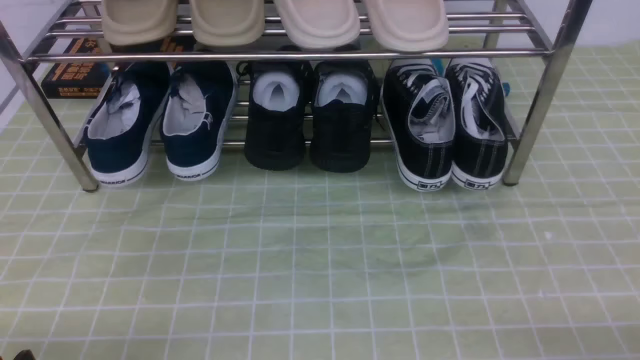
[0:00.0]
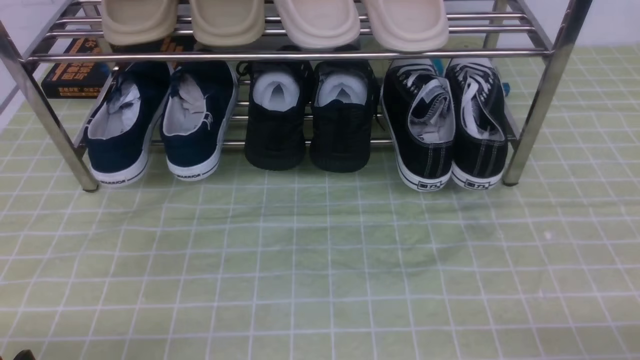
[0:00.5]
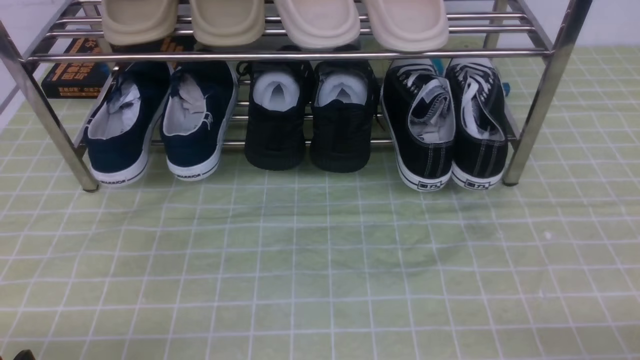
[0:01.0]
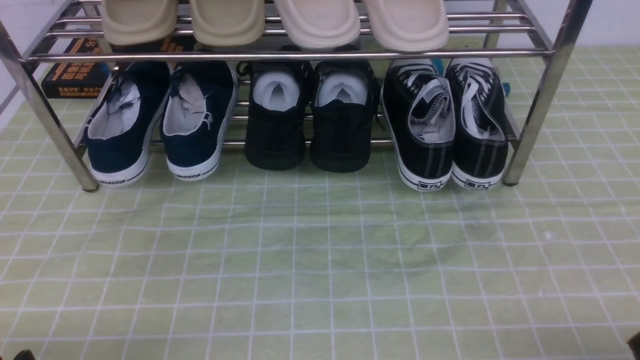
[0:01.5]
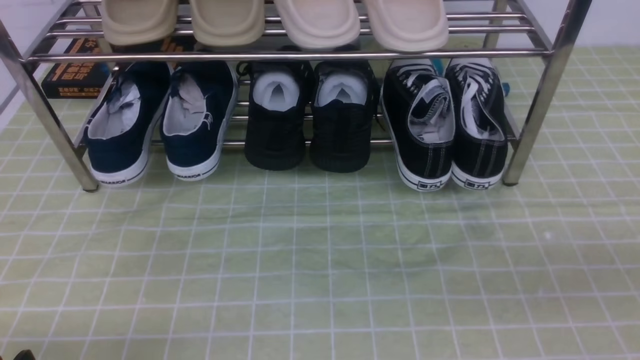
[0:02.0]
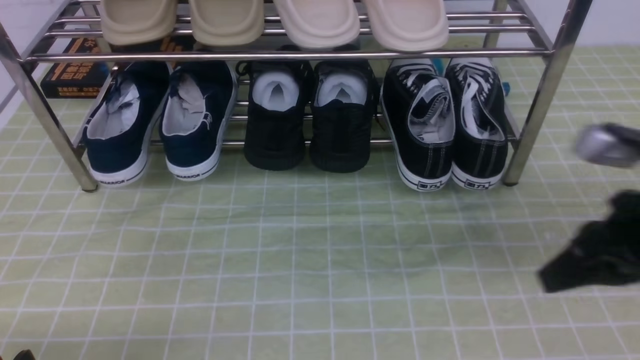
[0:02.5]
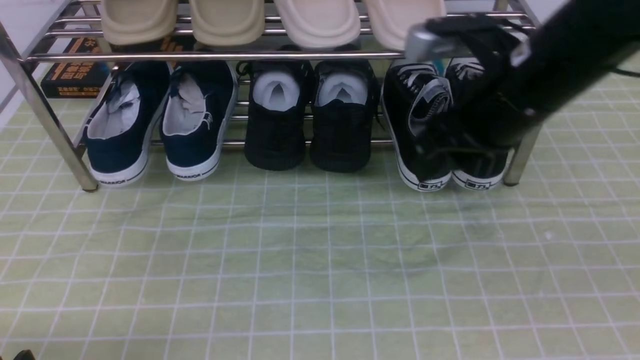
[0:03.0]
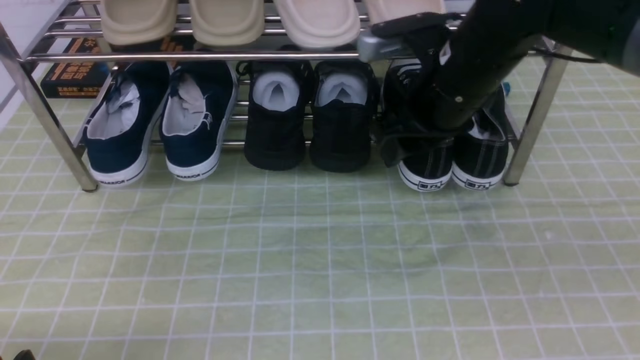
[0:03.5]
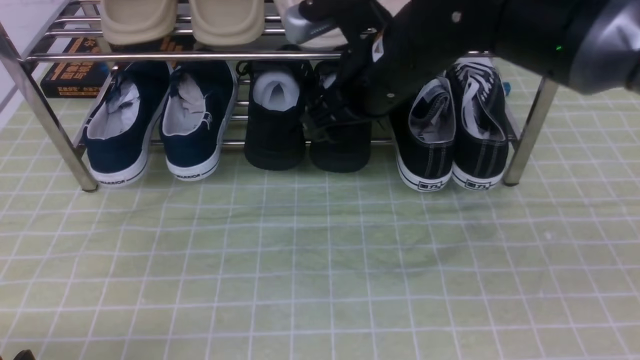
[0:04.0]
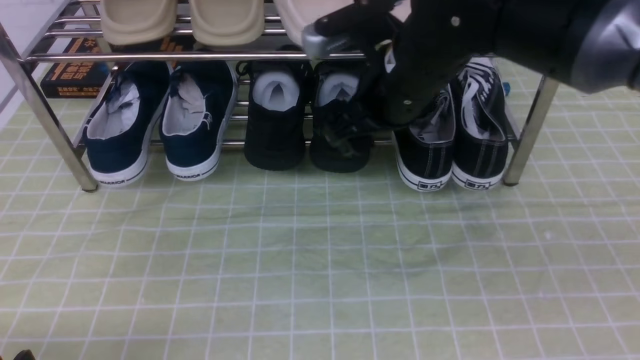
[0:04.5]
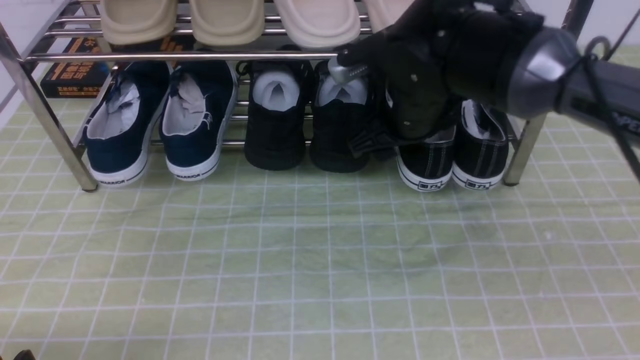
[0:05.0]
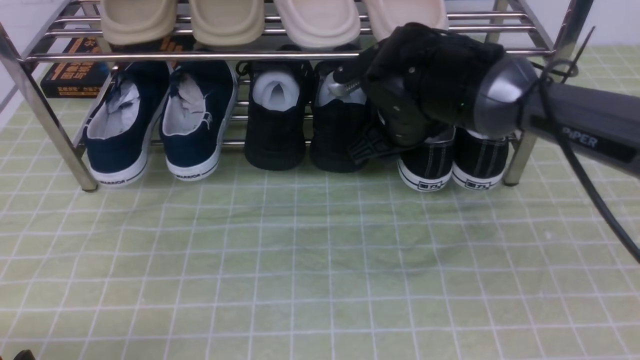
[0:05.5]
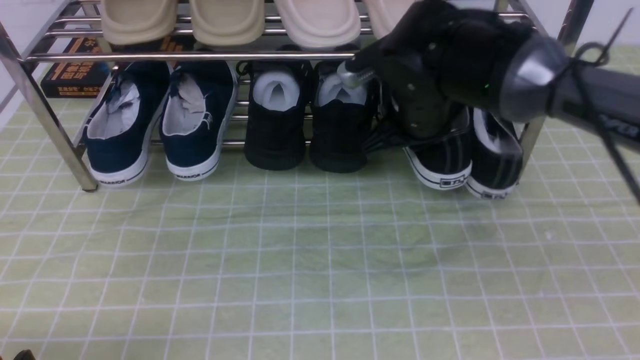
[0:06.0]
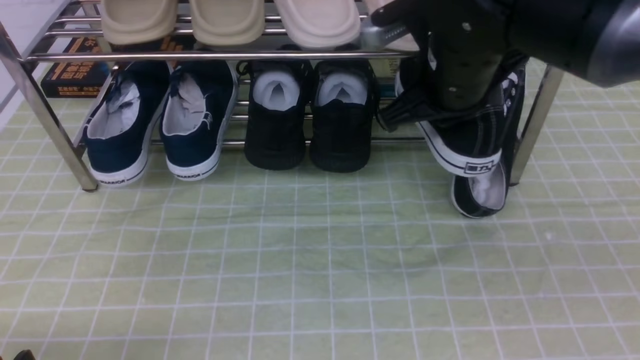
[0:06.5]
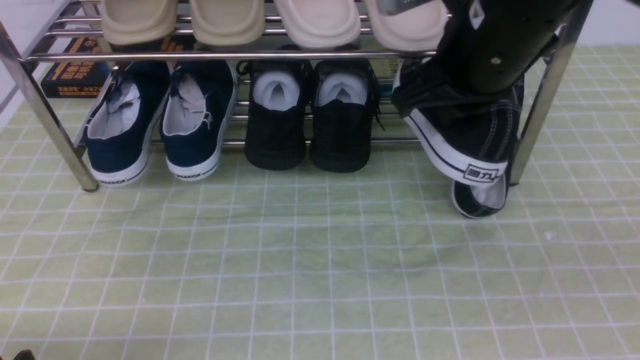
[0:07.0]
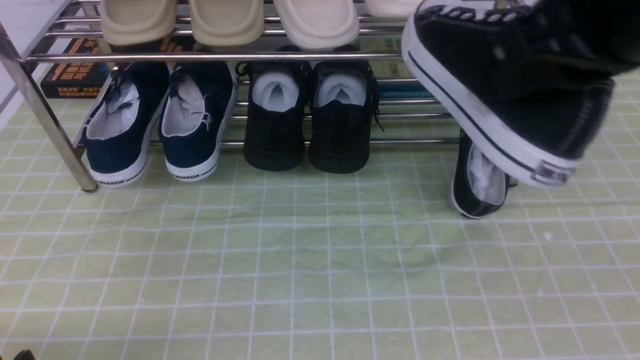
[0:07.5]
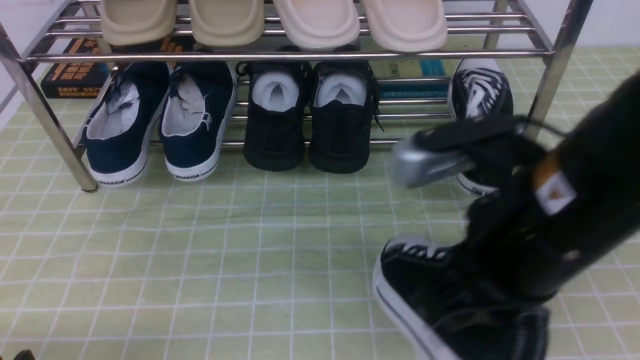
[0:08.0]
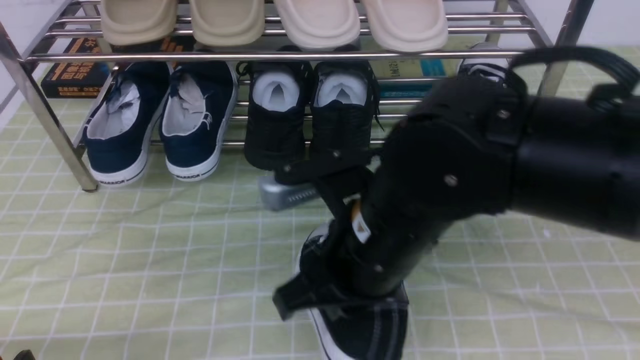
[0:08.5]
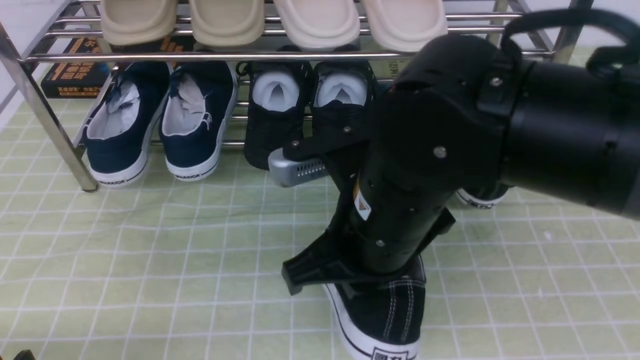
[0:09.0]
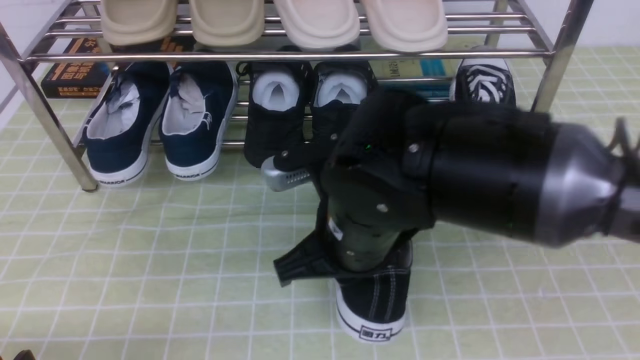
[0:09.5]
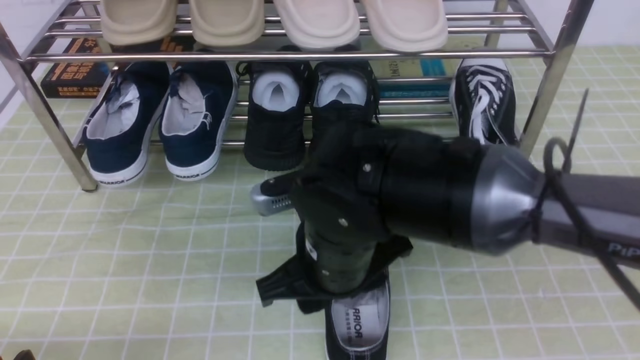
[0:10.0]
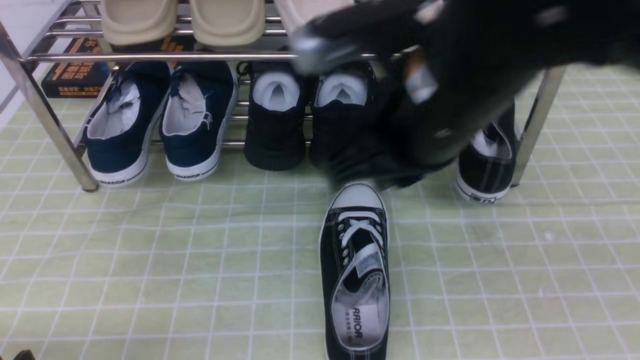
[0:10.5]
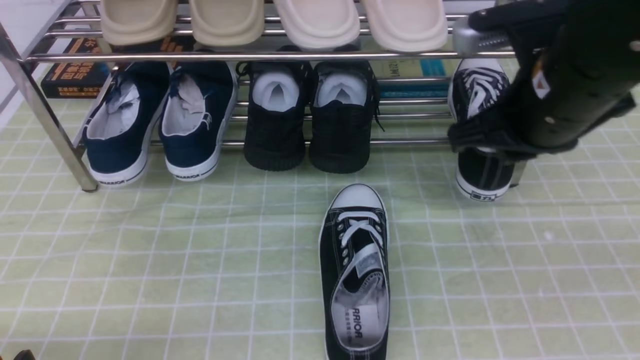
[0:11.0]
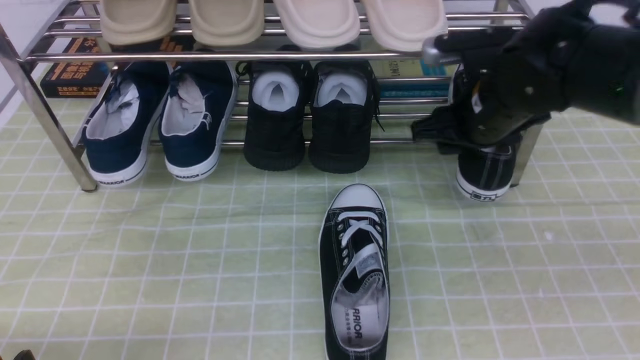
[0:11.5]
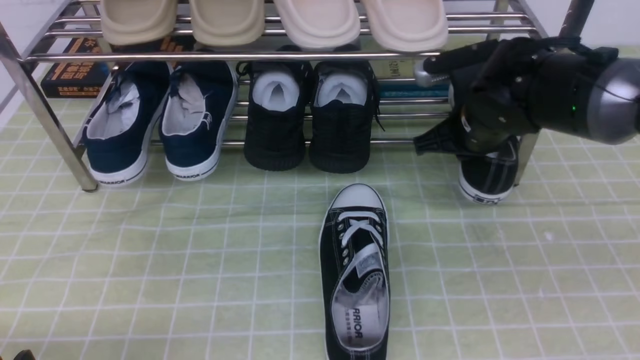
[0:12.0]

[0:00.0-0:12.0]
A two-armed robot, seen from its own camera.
Step, 0:00.0 to 0:05.5: use the right arm to clamp a shoe on the right side of the shoe rack.
Step, 0:06.0 to 0:10.0: use the right arm to take out the clamped shoe from the shoe rack and put it down.
0:02.0 to 0:04.0: The right gripper moves forward and to the left, roughly 35 cm, and opens its fingers.
0:04.0 to 0:06.0: The right gripper heads downward, covering about 5 cm, and closes.
0:06.0 to 0:08.0: The right gripper moves backward and upward, roughly 20 cm.
0:08.0 to 0:10.0: The right gripper moves to the left, downward and forward, about 20 cm, and opens.
0:10.0 to 0:12.0: The right gripper travels to the right and forward by approximately 20 cm.

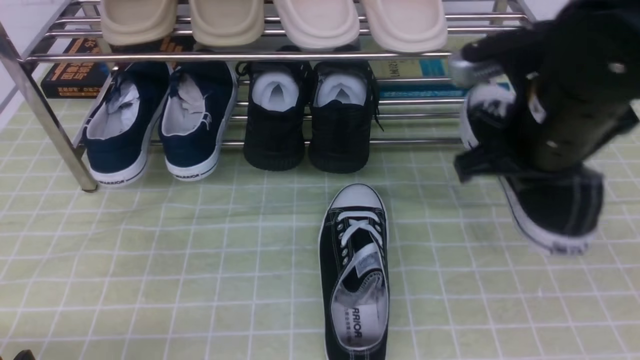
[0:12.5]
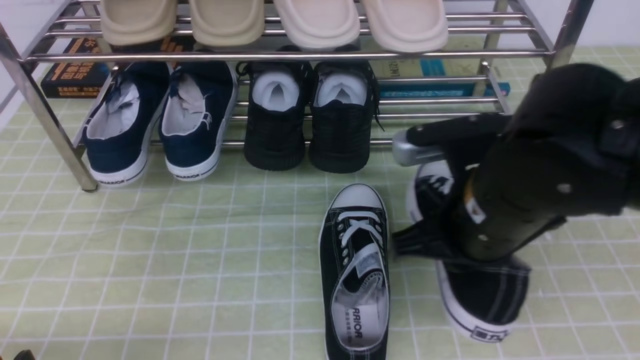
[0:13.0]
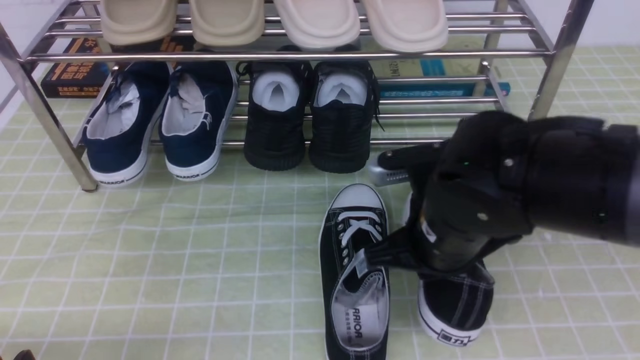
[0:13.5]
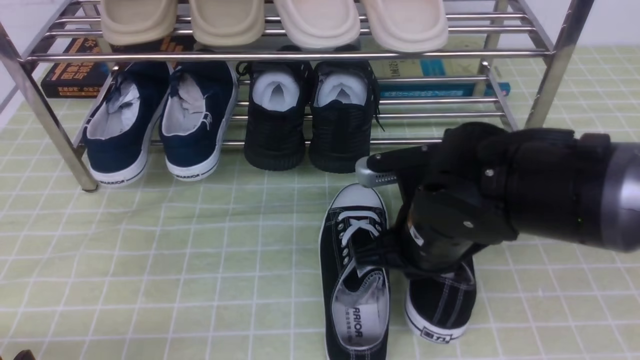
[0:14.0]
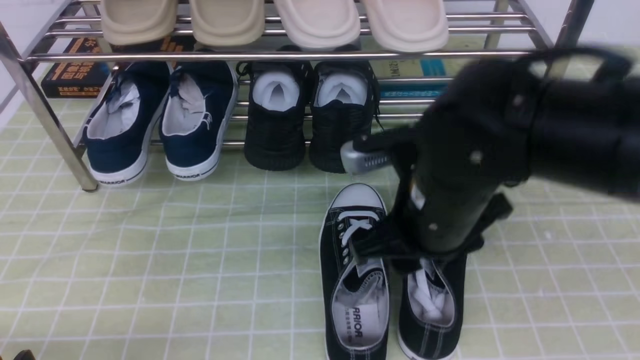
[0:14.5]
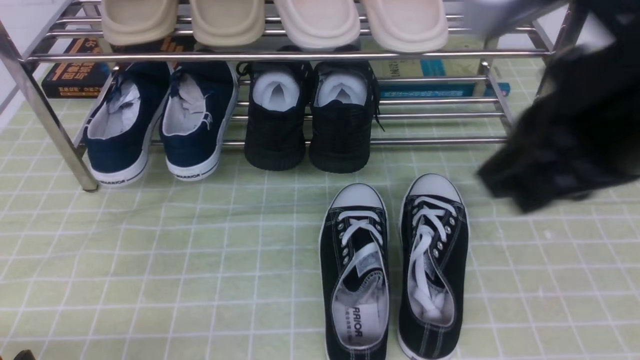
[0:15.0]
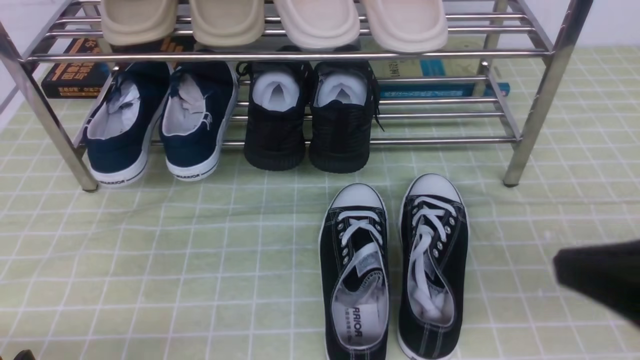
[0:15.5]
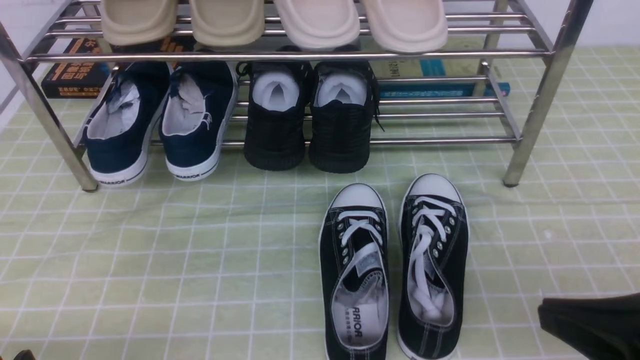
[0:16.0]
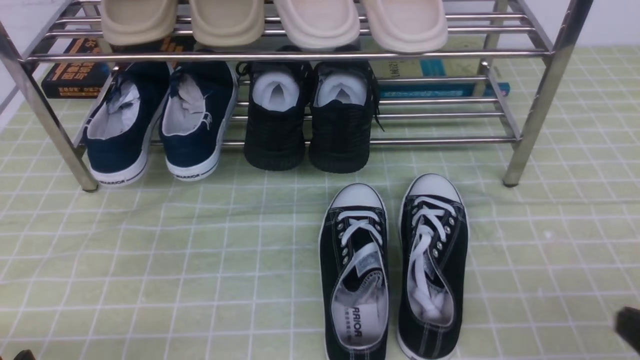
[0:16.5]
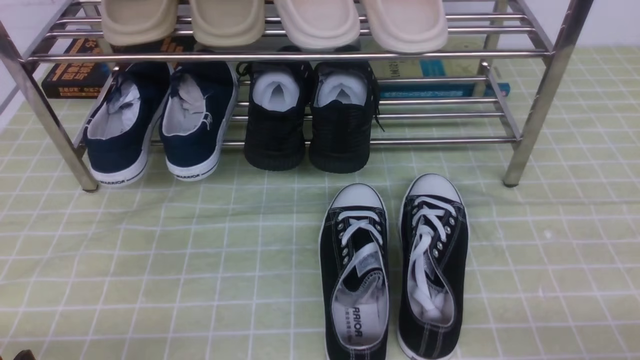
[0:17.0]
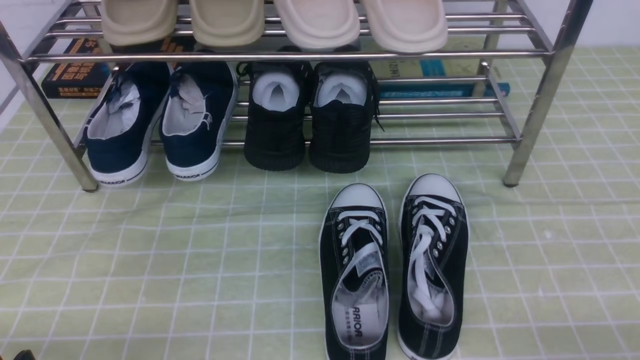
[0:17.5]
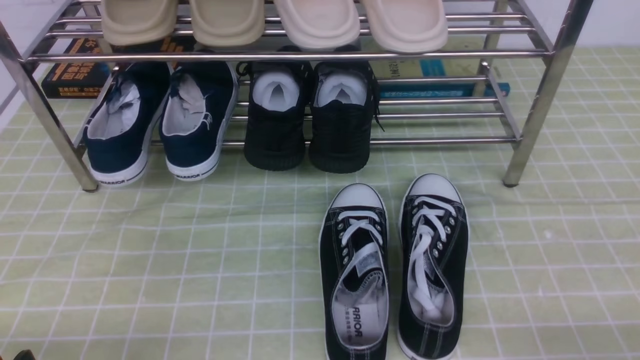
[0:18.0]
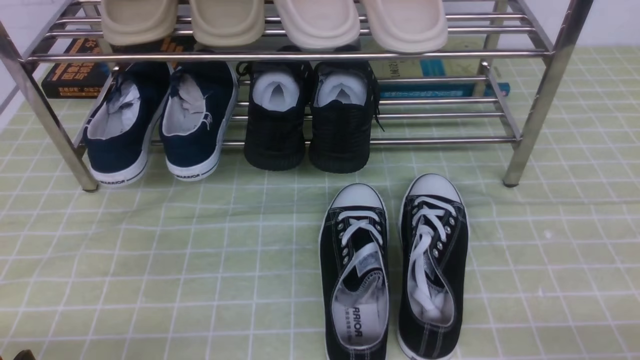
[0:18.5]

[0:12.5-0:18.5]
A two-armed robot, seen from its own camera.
Step, 0:12.5 to 0:14.5: use the right arm to take out the clamped shoe from the shoe rack and put it down.
0:12.5 to 0:14.5: The right gripper moves to the left, approximately 5 cm, and opens its fingers.
0:14.5 to 0:16.5: The right gripper shifts some 25 cm to the right and backward, and closes its fingers.

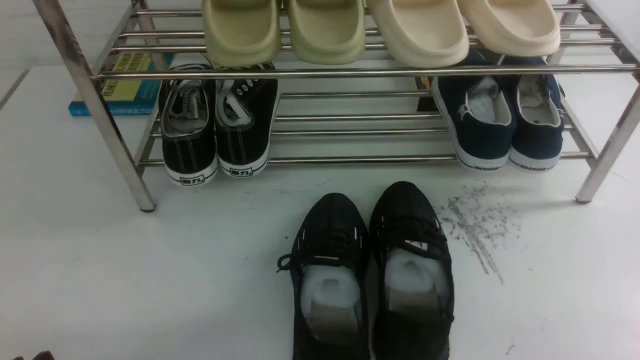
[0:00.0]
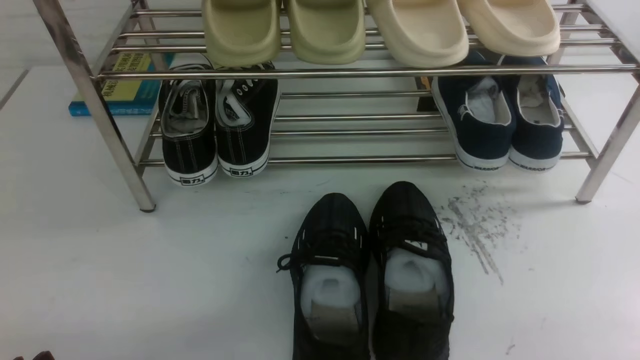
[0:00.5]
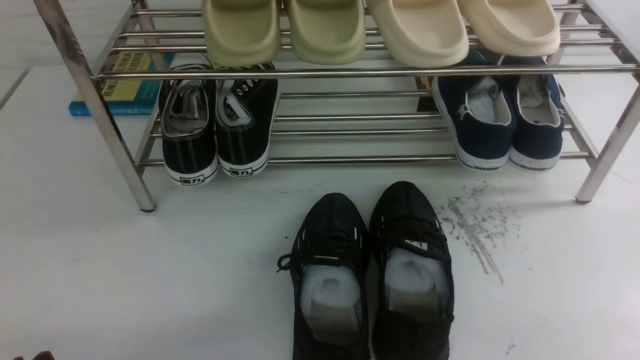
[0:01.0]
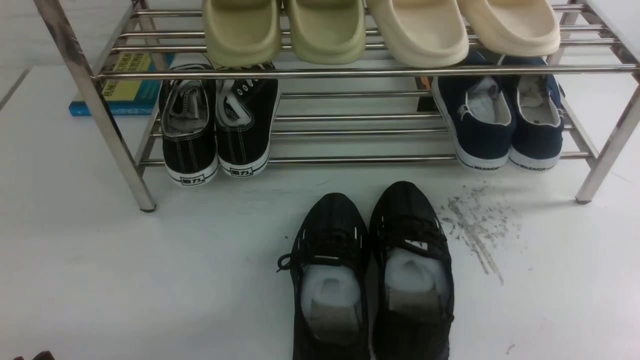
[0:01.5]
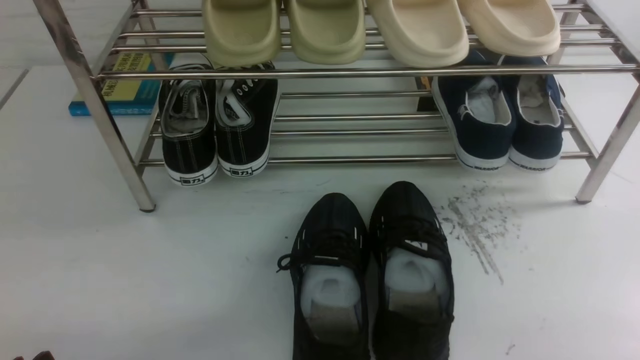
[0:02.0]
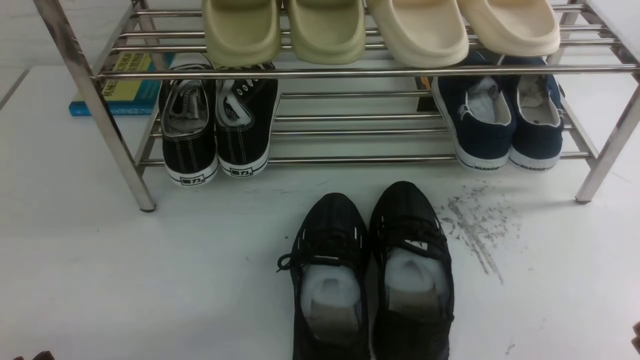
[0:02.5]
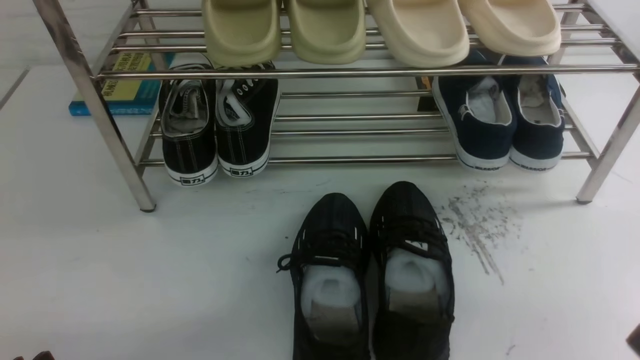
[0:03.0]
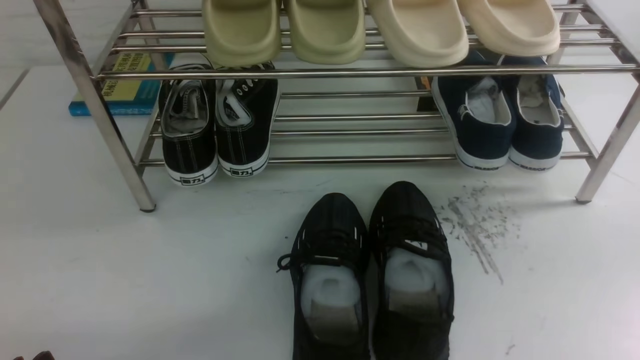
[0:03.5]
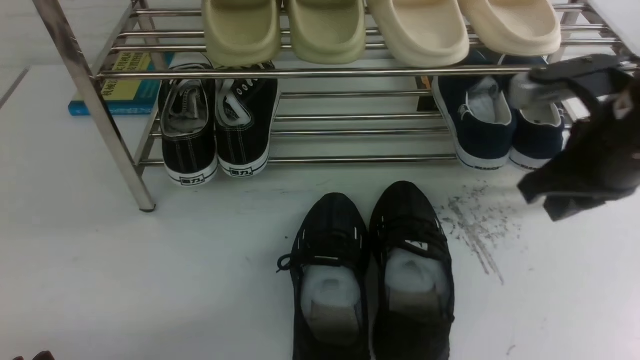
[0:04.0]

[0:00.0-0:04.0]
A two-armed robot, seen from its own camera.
0:02.0 to 0:04.0: The right gripper heads forward, upward and to the left, covering some 30 cm.
